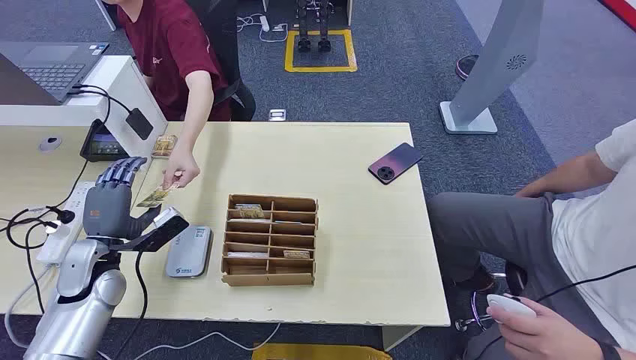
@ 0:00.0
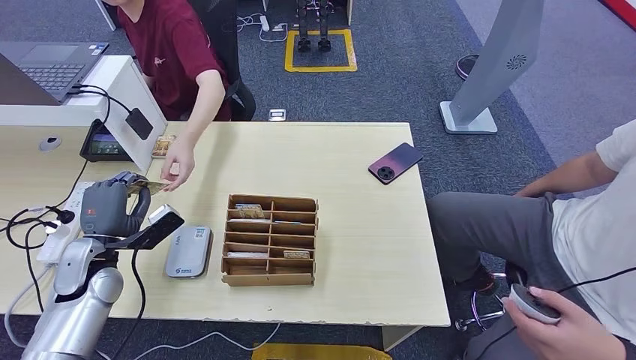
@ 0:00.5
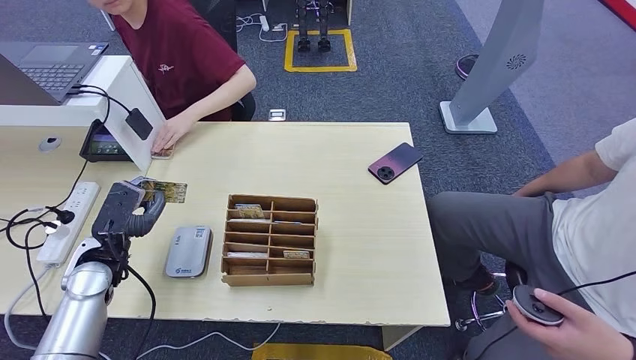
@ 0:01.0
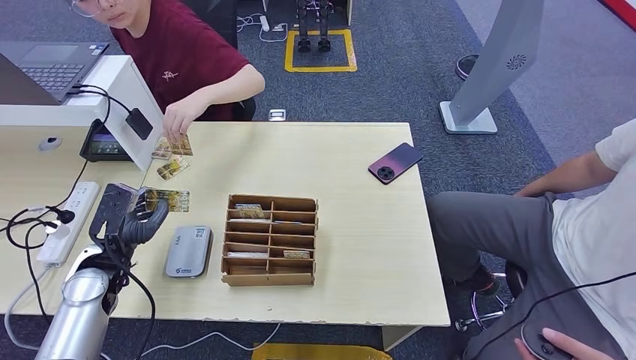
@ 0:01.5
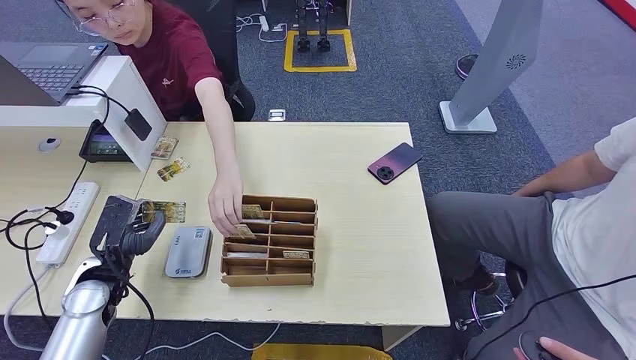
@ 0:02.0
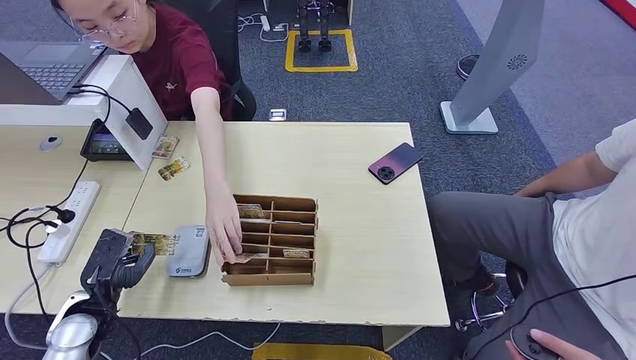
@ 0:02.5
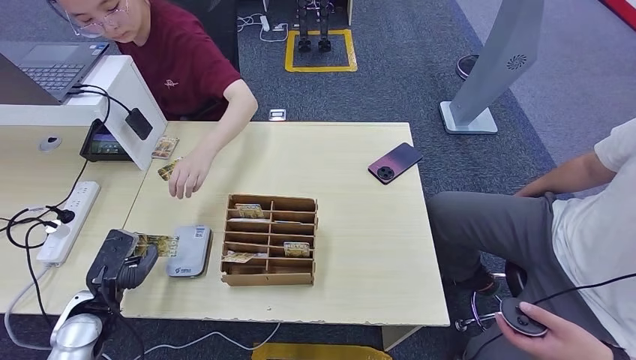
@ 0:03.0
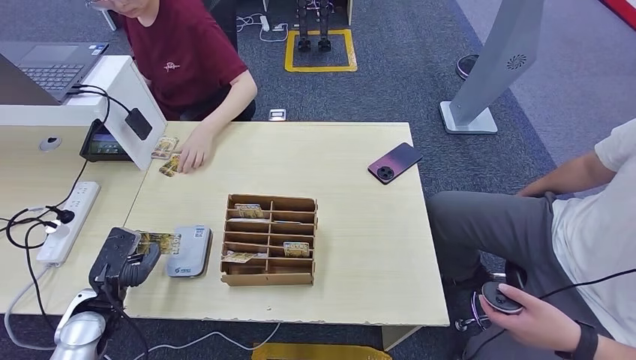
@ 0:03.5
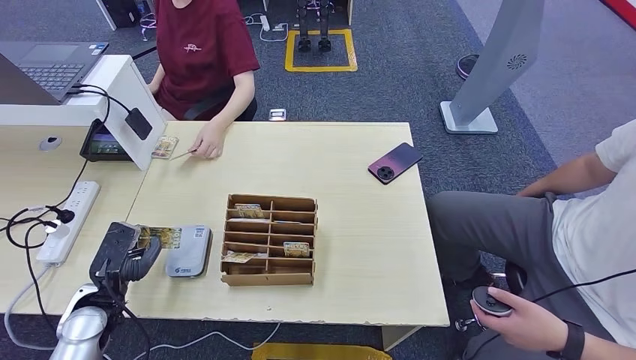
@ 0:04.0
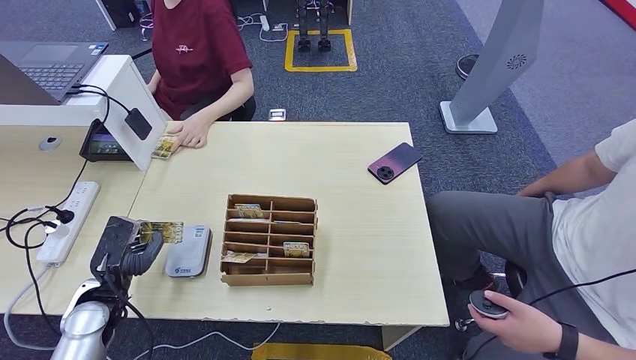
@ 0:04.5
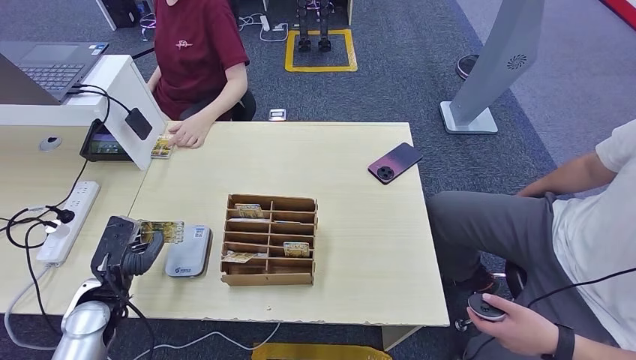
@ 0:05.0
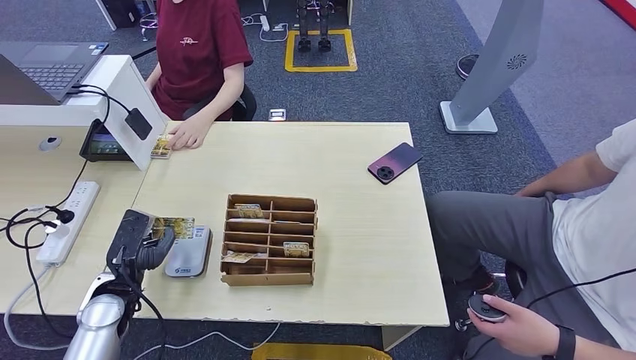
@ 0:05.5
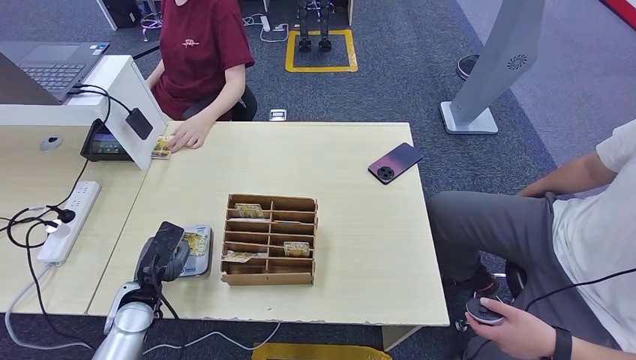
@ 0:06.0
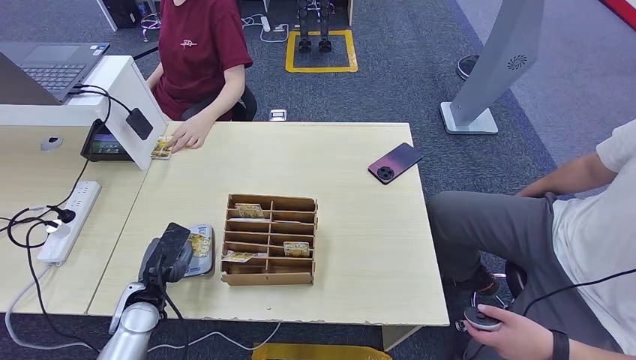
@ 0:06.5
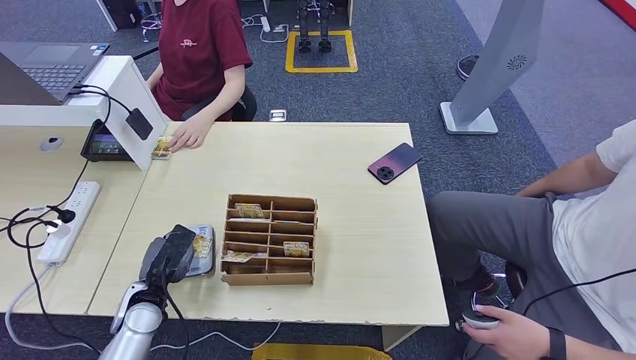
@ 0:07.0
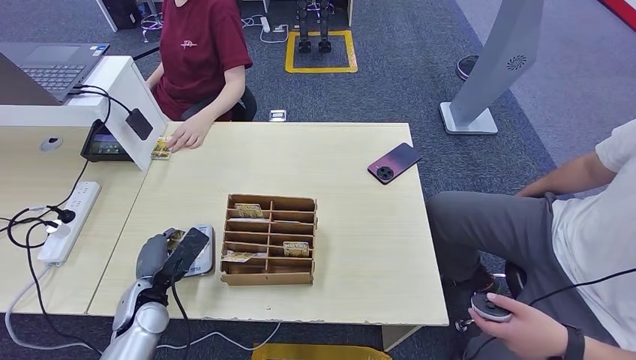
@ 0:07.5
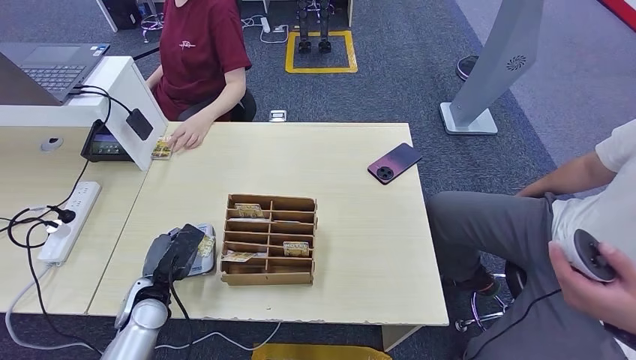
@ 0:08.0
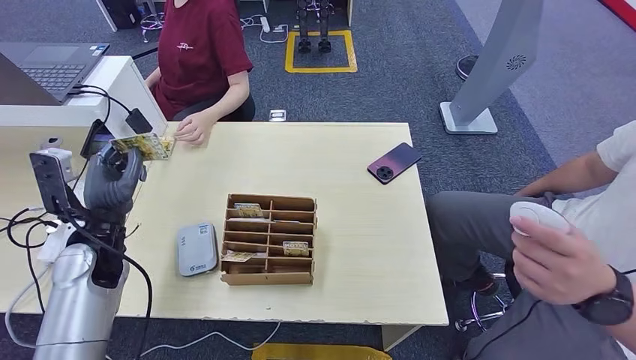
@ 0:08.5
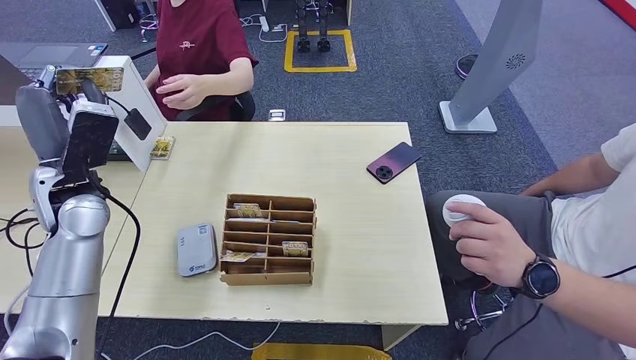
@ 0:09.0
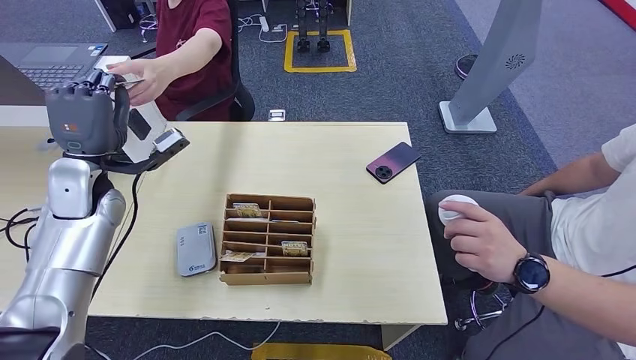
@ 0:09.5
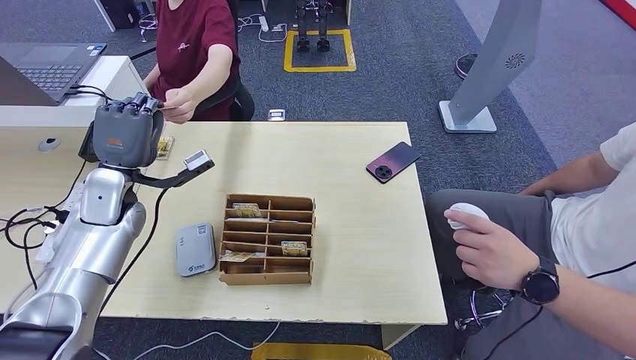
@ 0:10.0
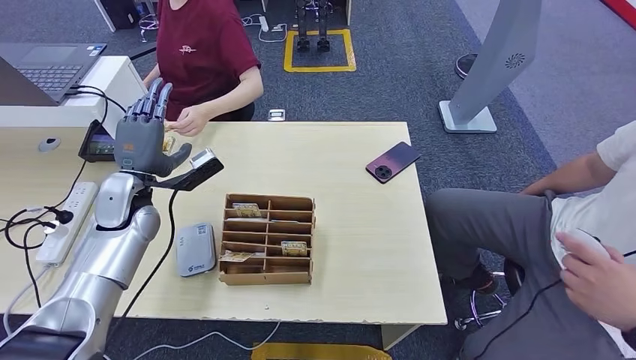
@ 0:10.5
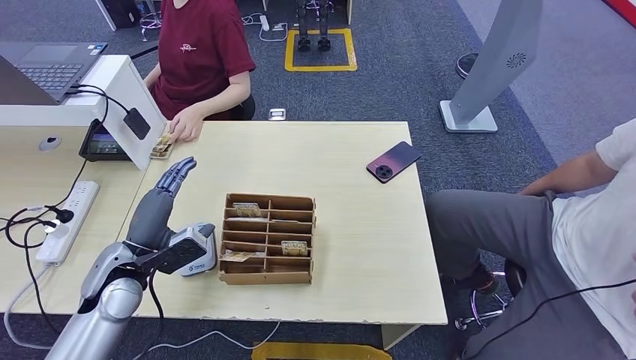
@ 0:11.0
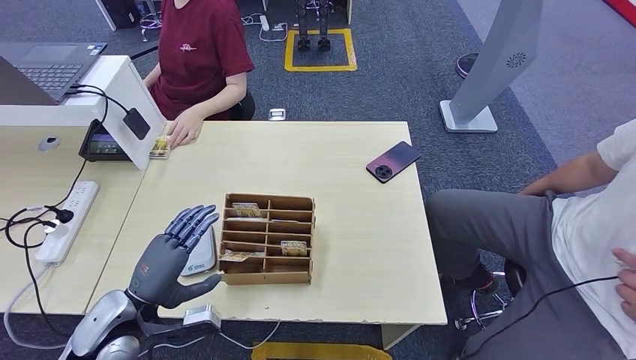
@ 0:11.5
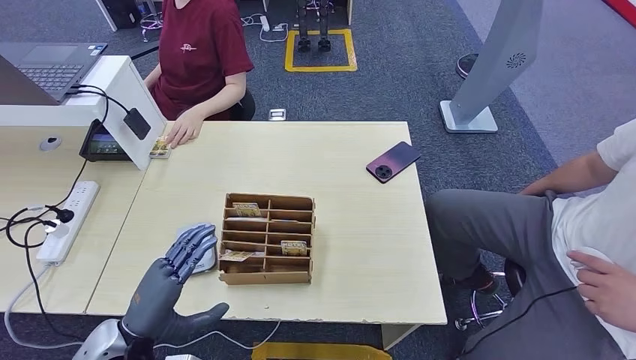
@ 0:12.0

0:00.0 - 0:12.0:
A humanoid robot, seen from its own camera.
Step, 0:00.0 - 0:01.0: Take the ID card from the person's hand.
Step, 0:02.0 - 0:07.0: Place the ID card on the card reader.
Step, 0:09.0 - 0:10.0: Hand the ID card to the person.
0:04.0 - 0:06.0: The left hand moves to the right, approximately 5 cm.
0:10.0 - 0:12.0: The left hand is displaced backward by about 25 cm.

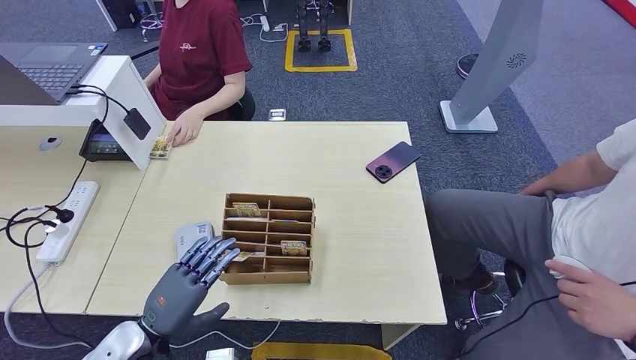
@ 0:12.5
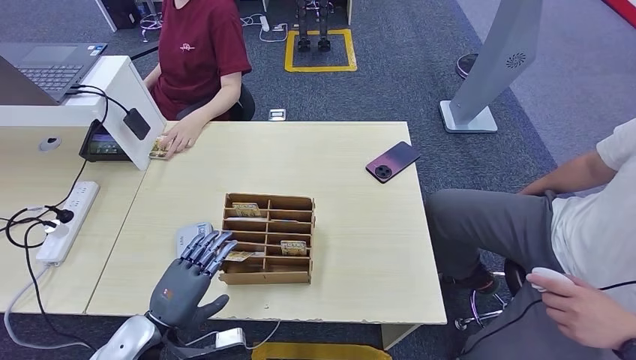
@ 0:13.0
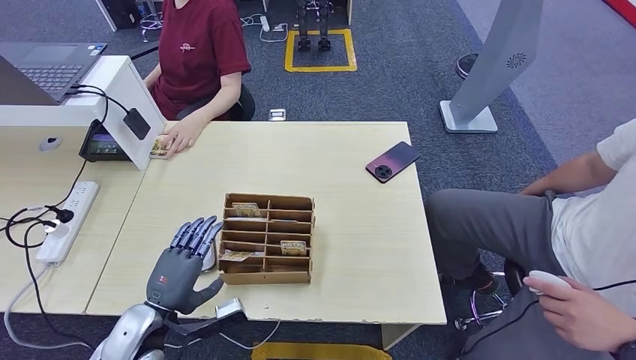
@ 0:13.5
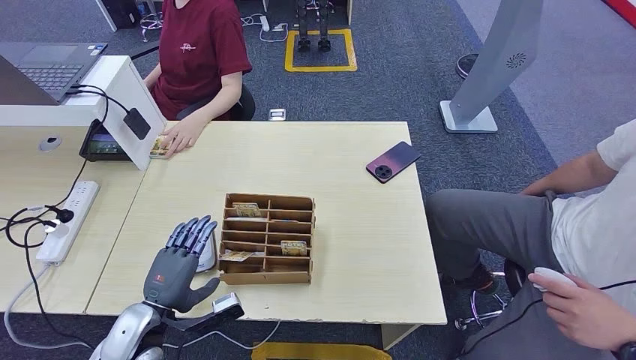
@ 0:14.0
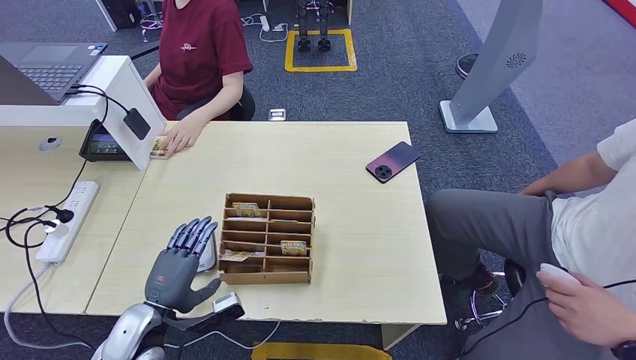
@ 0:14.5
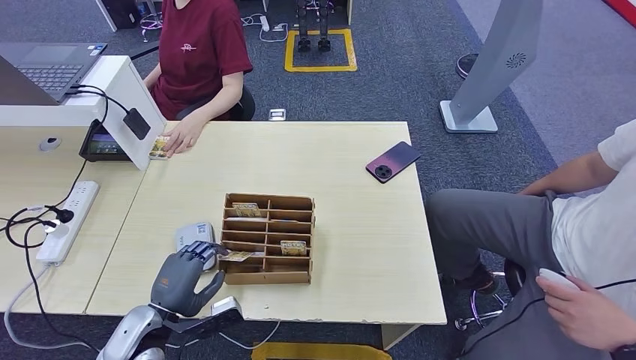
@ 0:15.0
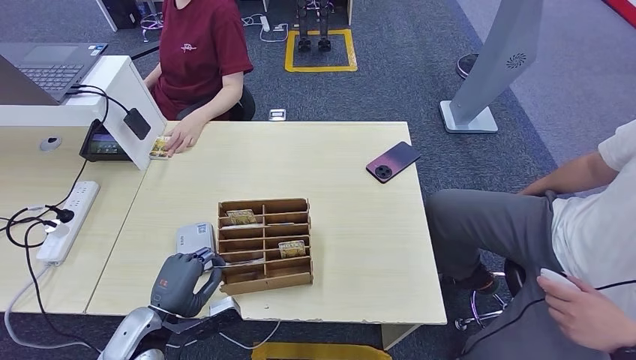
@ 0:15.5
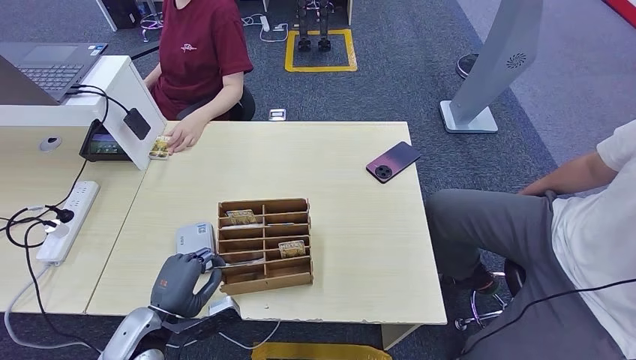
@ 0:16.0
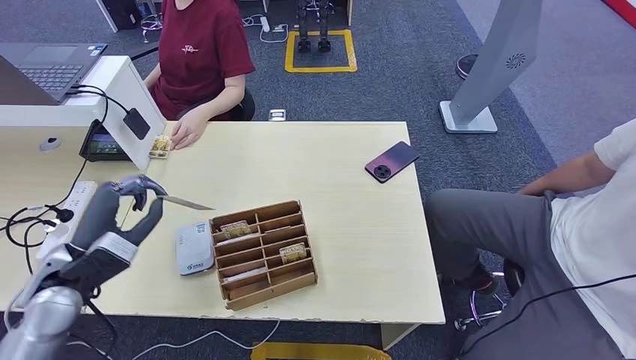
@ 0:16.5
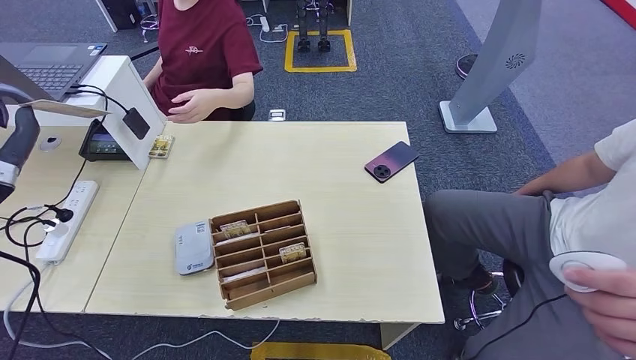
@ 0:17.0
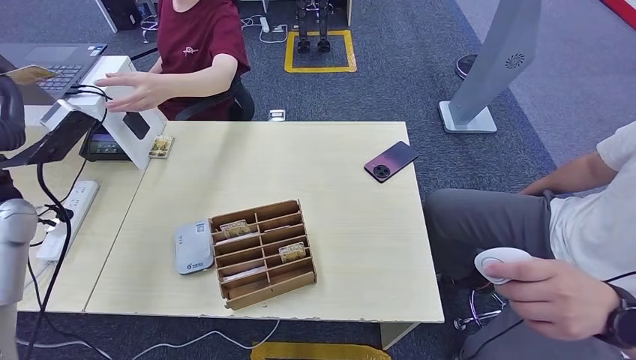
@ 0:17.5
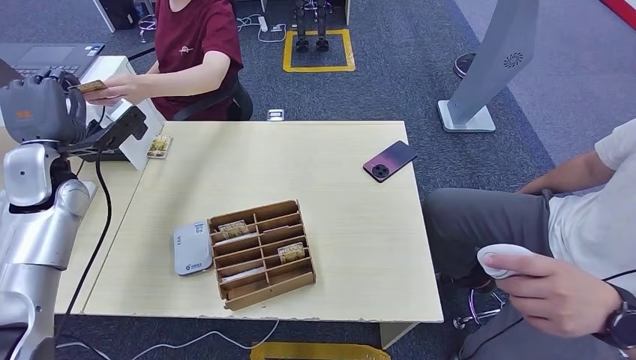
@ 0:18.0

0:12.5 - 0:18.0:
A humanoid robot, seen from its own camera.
Step, 0:15.0 - 0:16.0: Pick up the room key from the key card box.
Step, 0:17.5 - 0:18.0: Hand the room key to the person.
0:12.5 - 0:14.5: The hands stay close to where they were, moving slightly.
0:14.5 - 0:16.0: The hands move only a little.
